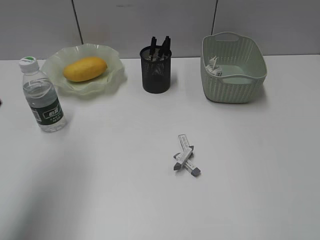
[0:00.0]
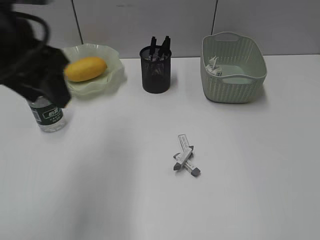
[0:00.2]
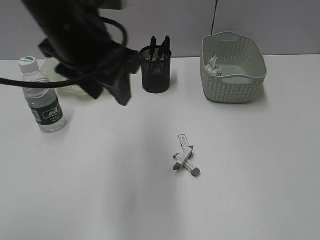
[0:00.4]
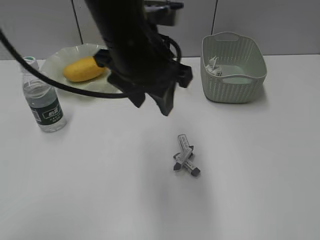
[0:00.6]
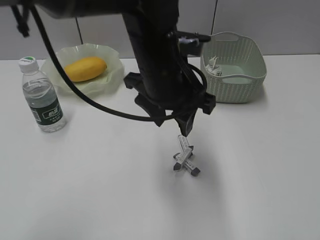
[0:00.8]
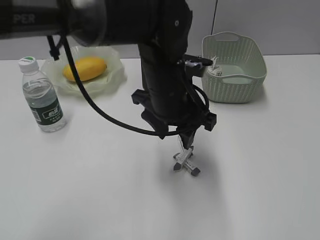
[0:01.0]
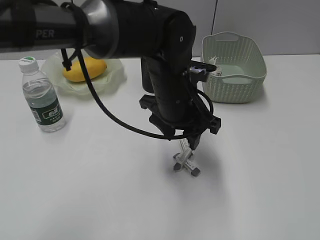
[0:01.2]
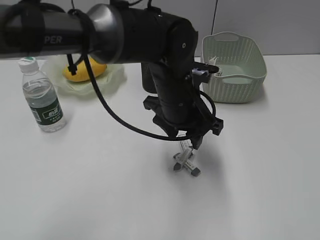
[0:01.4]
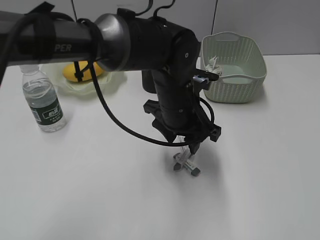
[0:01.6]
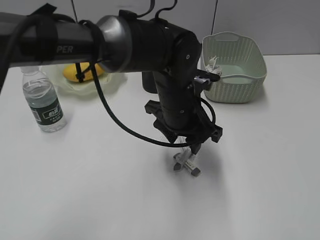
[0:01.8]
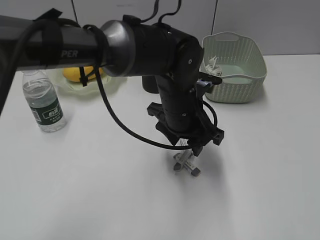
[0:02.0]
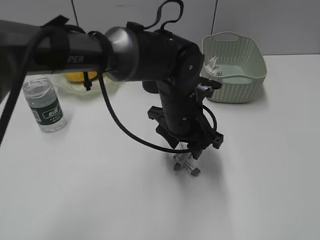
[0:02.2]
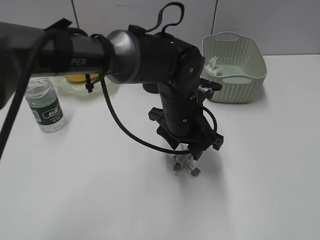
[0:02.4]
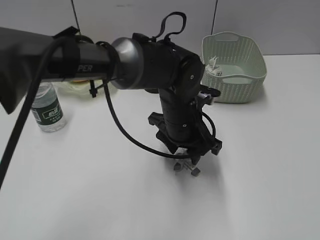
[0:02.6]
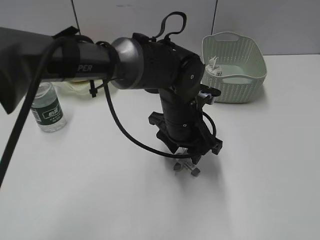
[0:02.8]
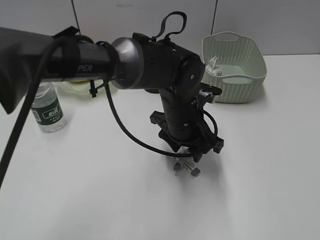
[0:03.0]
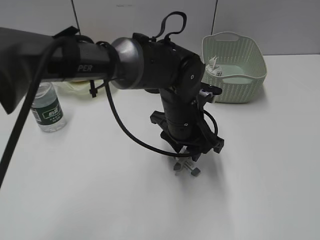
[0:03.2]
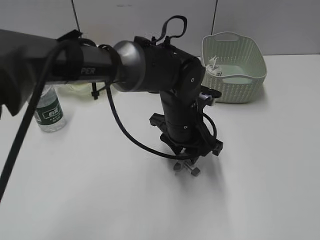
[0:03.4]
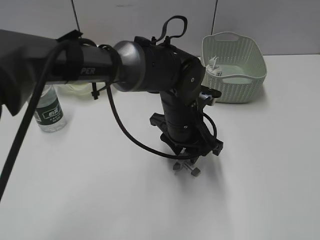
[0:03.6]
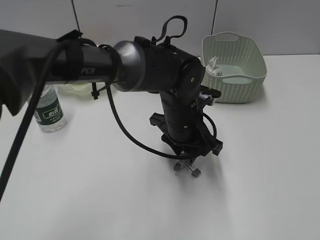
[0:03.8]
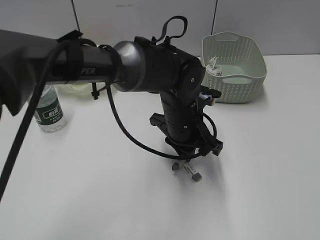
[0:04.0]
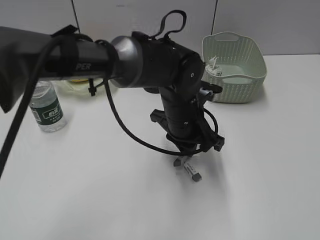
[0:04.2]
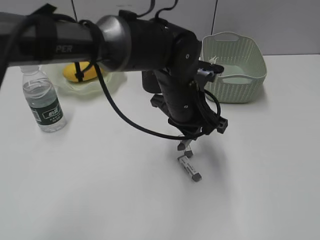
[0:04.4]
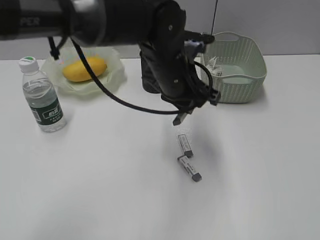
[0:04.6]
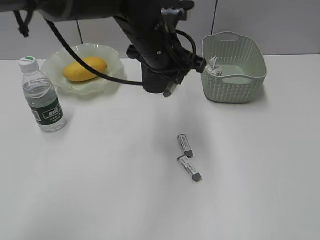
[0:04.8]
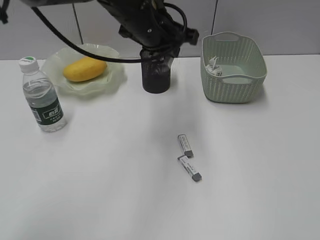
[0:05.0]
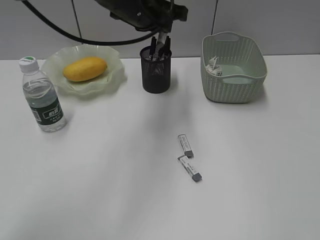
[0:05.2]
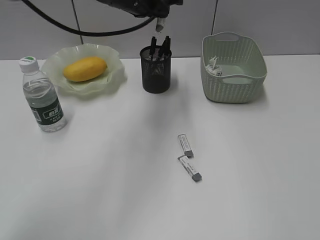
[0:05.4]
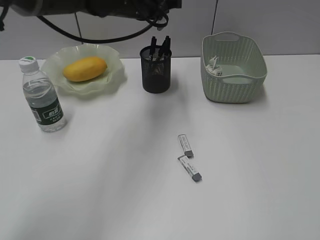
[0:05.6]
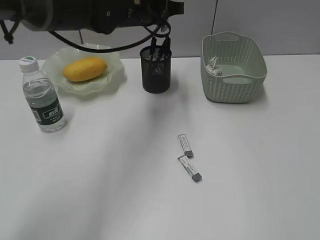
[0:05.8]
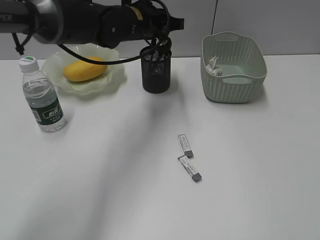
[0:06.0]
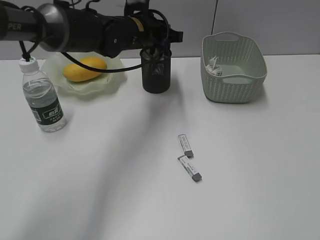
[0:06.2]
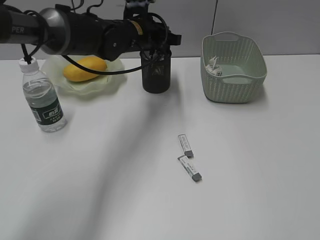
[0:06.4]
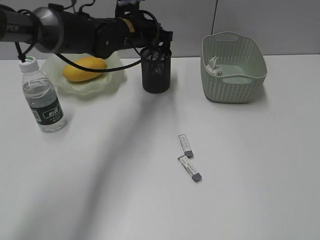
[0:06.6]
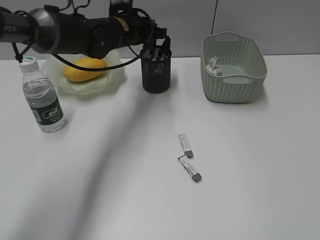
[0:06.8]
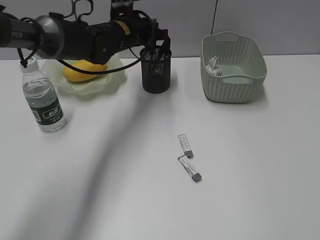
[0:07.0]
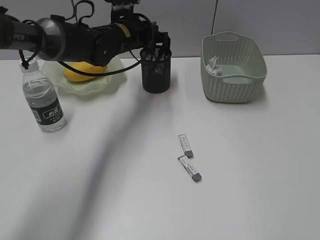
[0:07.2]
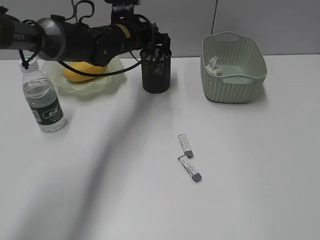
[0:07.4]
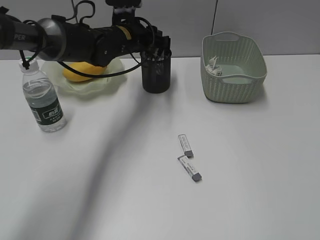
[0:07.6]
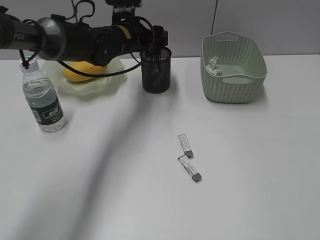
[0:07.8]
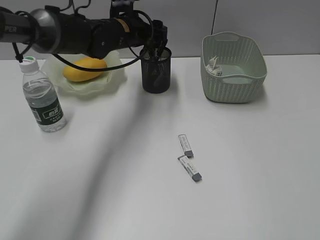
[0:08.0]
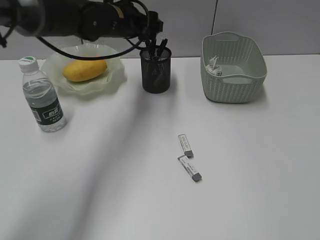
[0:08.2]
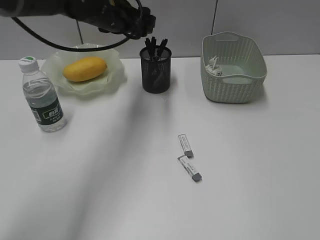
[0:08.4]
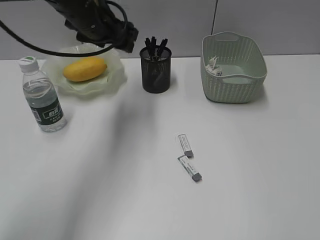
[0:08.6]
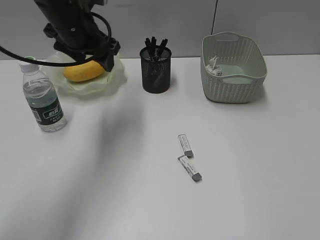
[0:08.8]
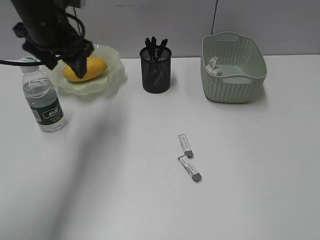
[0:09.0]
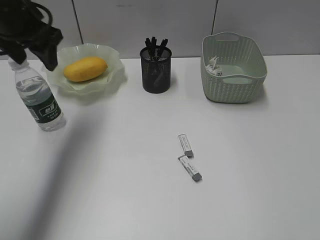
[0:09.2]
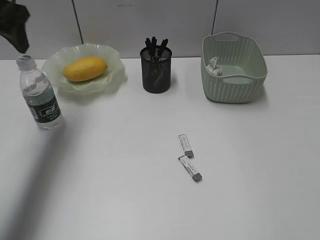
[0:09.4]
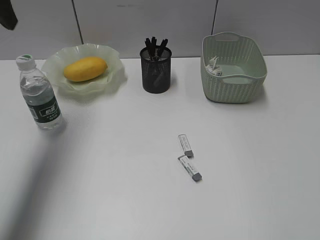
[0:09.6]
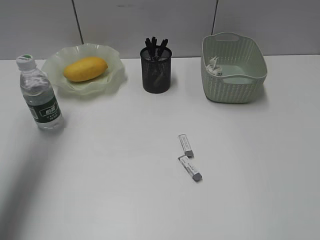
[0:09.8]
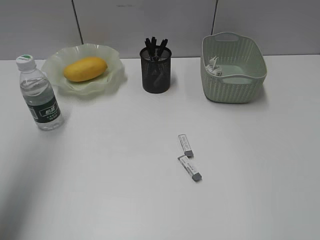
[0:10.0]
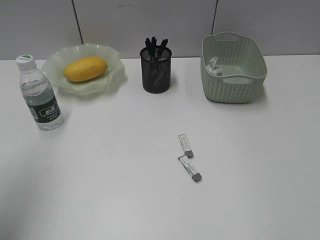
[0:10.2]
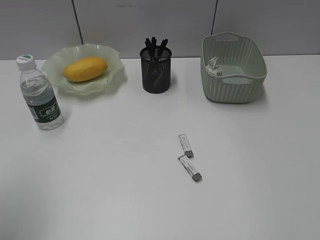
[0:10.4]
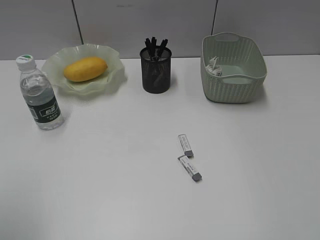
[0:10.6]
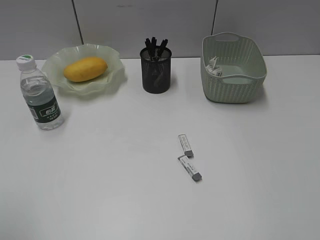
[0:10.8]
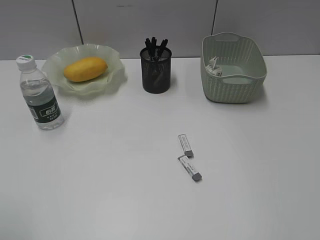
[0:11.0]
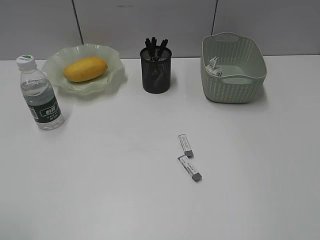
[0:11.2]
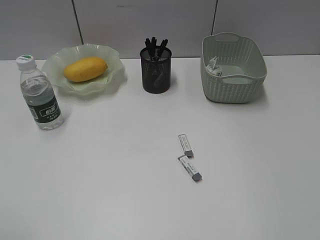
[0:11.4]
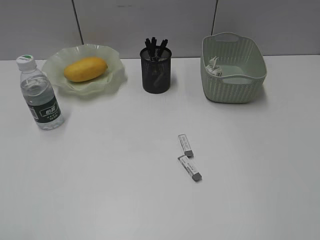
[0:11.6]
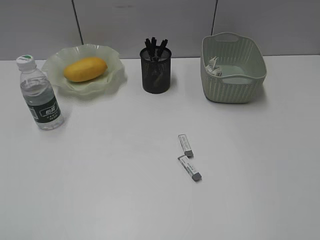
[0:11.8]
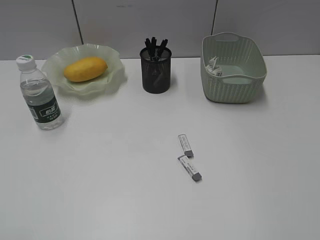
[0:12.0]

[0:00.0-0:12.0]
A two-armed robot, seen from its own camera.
Step, 0:00.0 to 0:04.0: Grasp the eraser with left gripper.
Step, 0:04.2 to 0:07.8: Place the eraser in pen holder with left gripper.
0:00.0 to 0:01.6: The left gripper goes approximately 35 cm to the right and downward.
0:01.6 to 0:03.0: The grippers stay close to where they were, moving slightly.
0:03.0 to 0:04.4: The left gripper closes.
0:04.4 to 0:06.0: The left gripper shifts approximately 15 cm forward, to the left and upward.
0:06.0 to 0:07.6: The left gripper shifts by approximately 5 cm, and opens.
0:07.6 to 0:09.0: The left gripper is displaced to the left, upward and backward by approximately 15 cm, and opens.
0:09.0 to 0:10.4: The left gripper travels backward and to the left by about 30 cm.
0:10.4 to 0:12.0: The left gripper goes some 15 cm backward and downward.

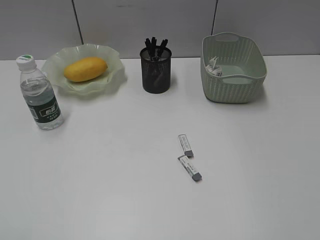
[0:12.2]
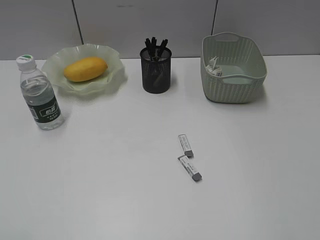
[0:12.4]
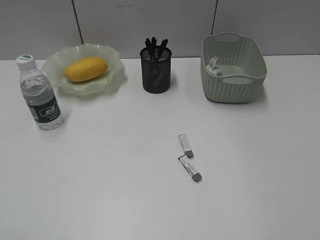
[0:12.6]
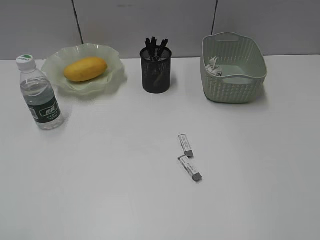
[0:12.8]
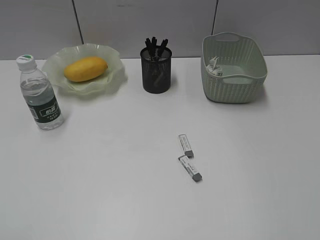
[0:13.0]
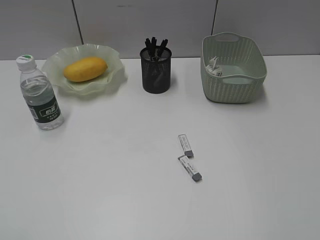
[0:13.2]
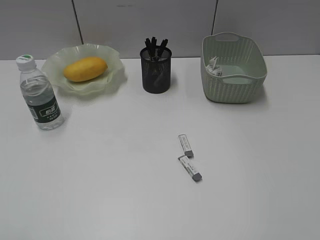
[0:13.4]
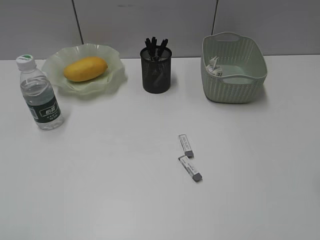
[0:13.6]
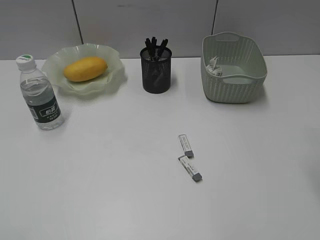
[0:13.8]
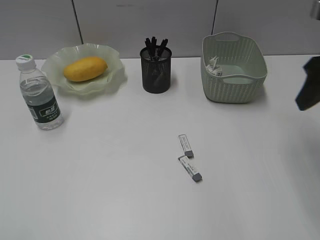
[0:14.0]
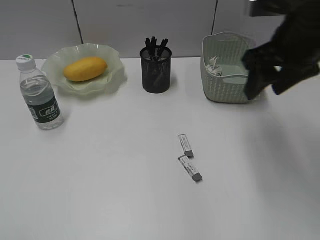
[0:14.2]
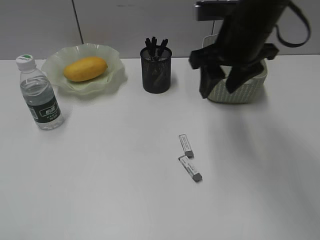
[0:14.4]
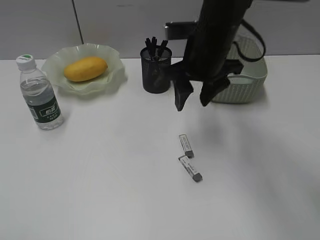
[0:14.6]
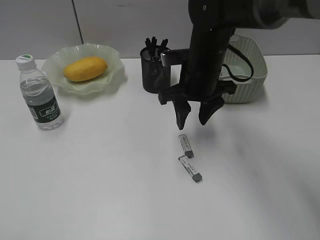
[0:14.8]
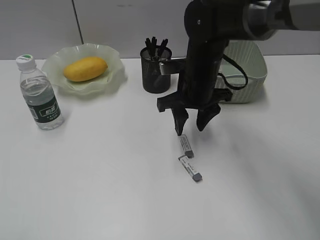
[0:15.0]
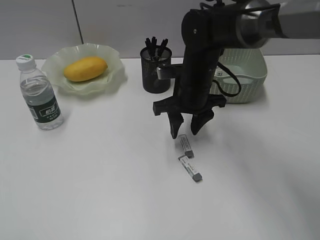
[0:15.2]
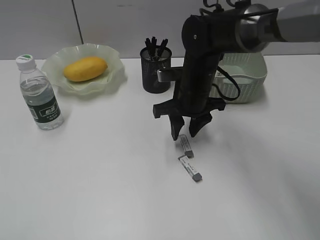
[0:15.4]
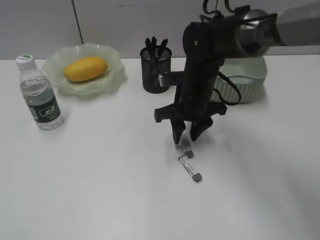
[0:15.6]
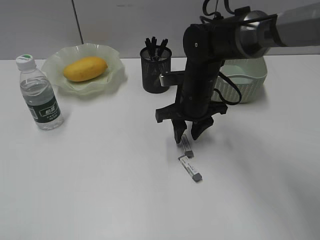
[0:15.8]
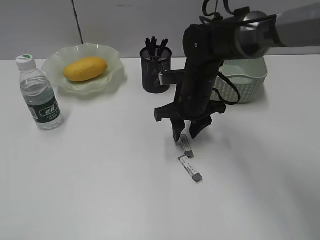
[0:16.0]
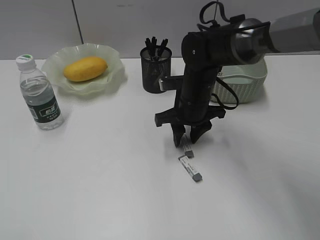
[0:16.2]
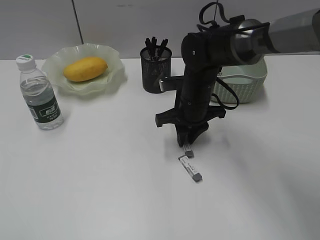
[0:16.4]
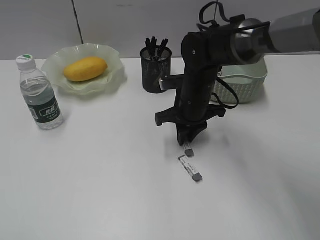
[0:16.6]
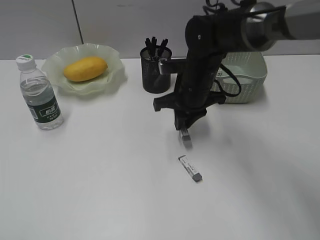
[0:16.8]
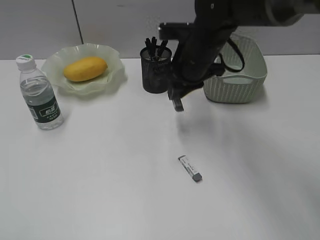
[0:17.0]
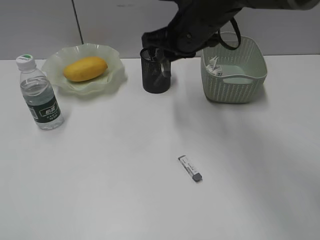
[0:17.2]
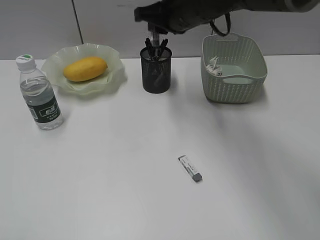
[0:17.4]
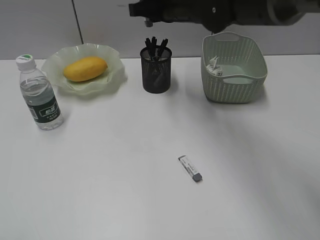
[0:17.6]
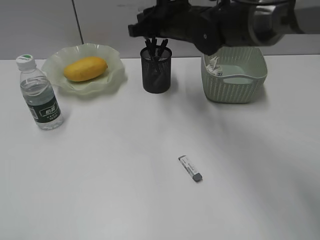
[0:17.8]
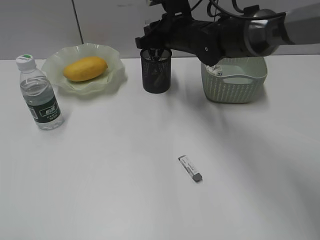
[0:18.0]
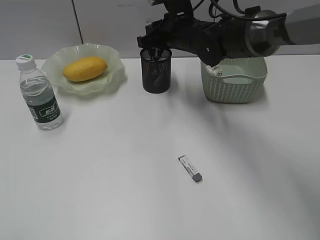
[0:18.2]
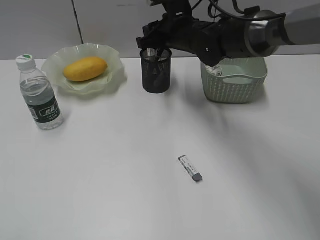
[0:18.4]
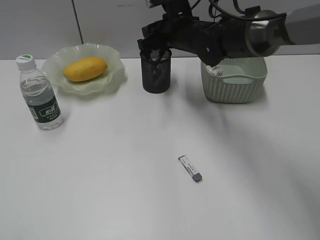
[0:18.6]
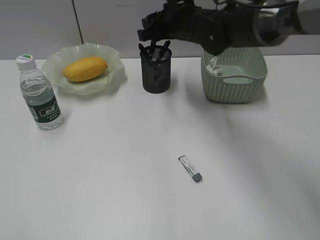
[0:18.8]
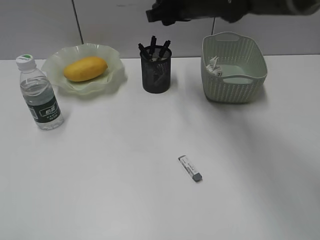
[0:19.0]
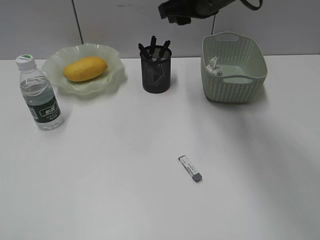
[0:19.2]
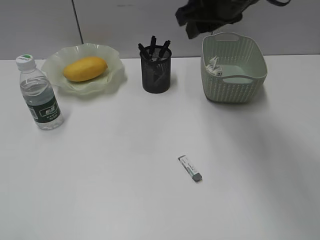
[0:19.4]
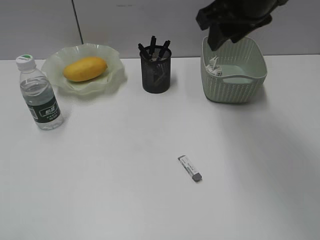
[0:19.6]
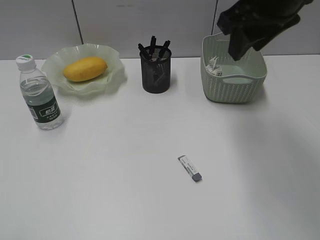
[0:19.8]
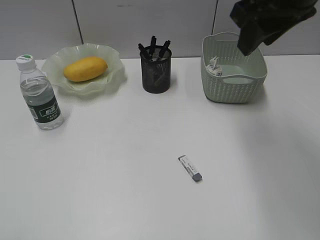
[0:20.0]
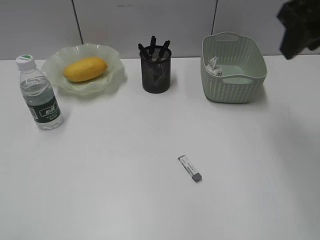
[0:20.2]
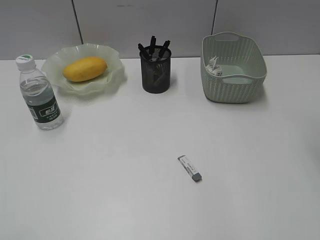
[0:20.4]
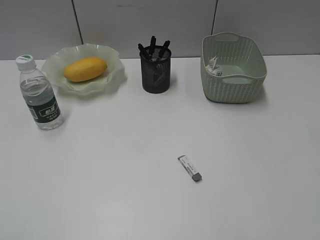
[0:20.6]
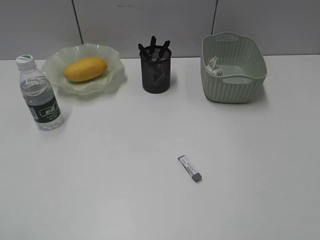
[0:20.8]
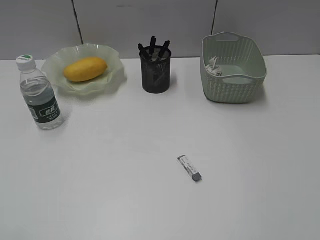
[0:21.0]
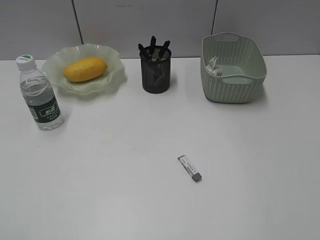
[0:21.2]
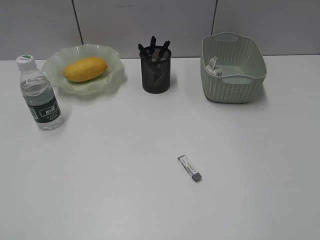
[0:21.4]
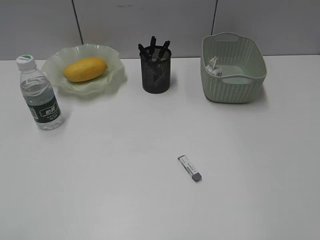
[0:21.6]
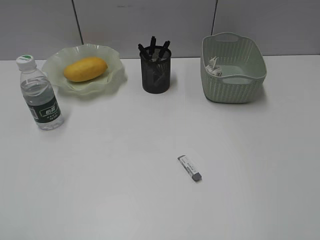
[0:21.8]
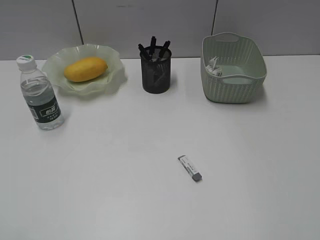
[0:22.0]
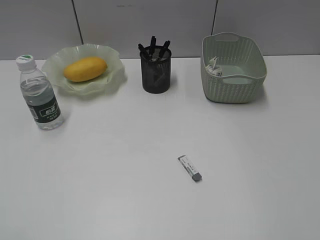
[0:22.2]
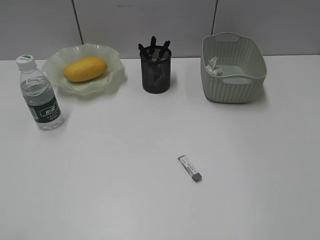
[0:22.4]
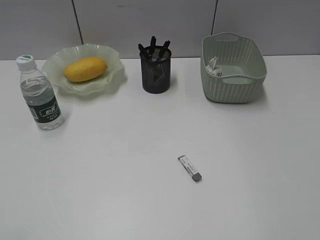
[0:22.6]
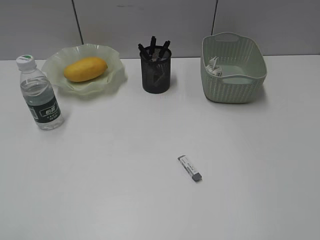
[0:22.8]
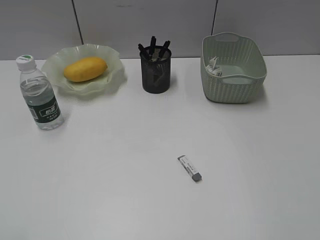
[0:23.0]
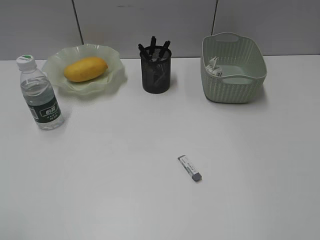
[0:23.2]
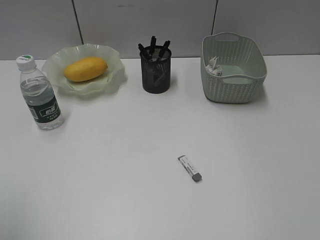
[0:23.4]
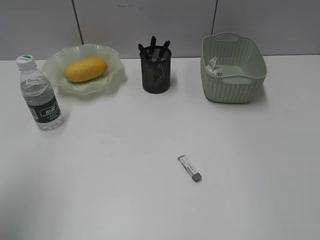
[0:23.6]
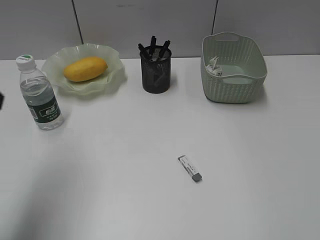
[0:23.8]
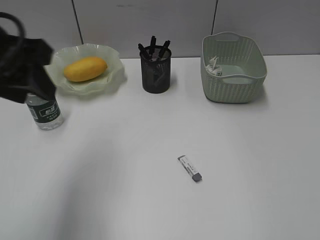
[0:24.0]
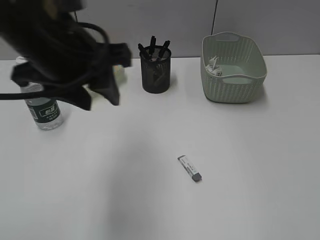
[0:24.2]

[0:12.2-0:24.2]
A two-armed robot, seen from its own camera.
Step, 0:12.2 to 0:16.4: Grasp the eraser with right gripper.
Step, 0:16.6 to 0:18.6: Place the eraser in pen holder with right gripper.
0:13.8 to 0:15.2: The right gripper goes approximately 30 cm to the left, downward and forward.
0:15.2 to 0:16.6: The right gripper closes.
0:16.6 to 0:18.2: The right gripper goes roughly 10 cm forward and upward.
0:18.2 to 0:19.8: The right gripper goes roughly 20 cm upward, backward and to the right, and opens its fingers.
0:19.8 to 0:21.2: The right gripper goes about 30 cm backward and to the right.
0:22.6 to 0:24.2: The left gripper is displaced forward and to the right by about 30 cm.
